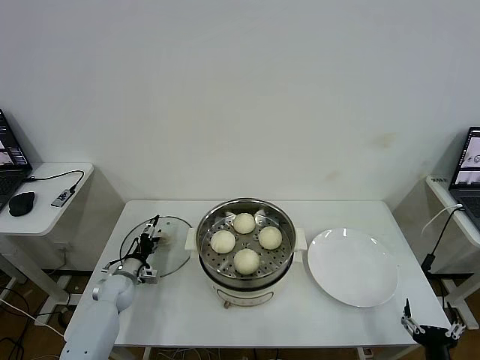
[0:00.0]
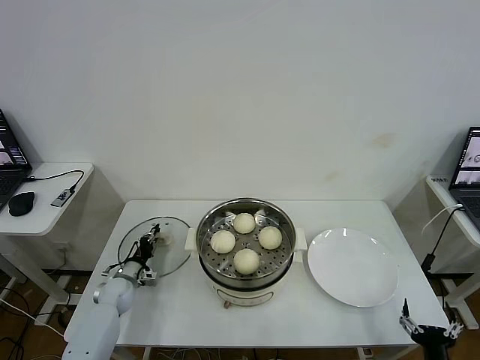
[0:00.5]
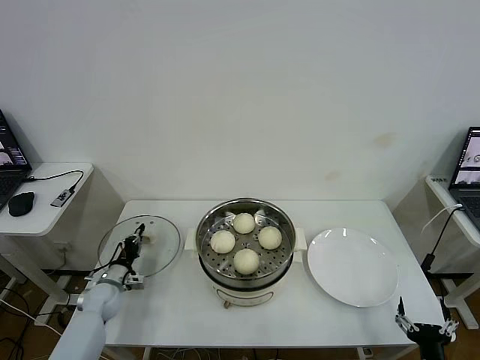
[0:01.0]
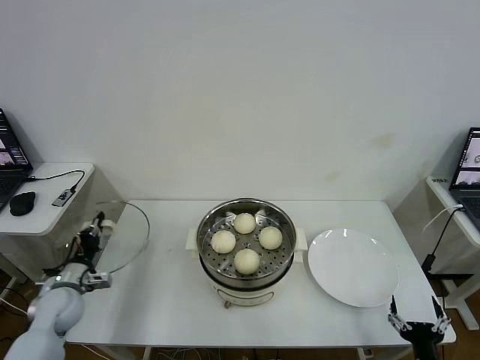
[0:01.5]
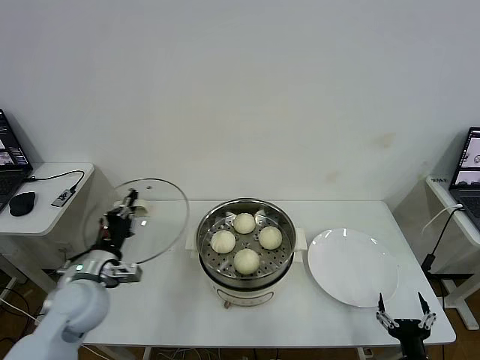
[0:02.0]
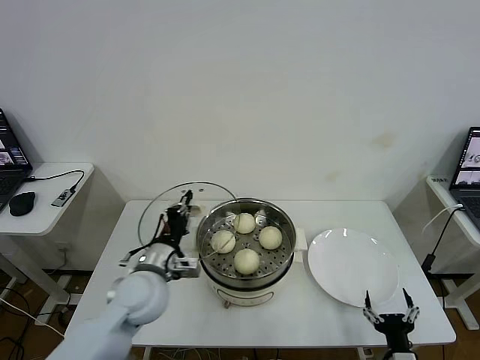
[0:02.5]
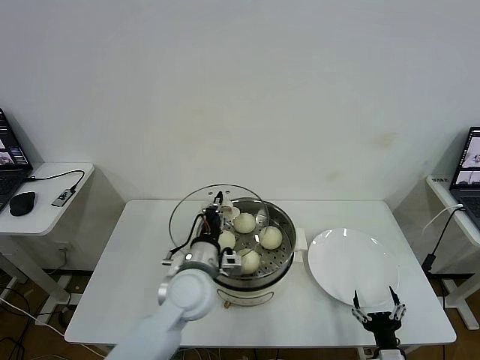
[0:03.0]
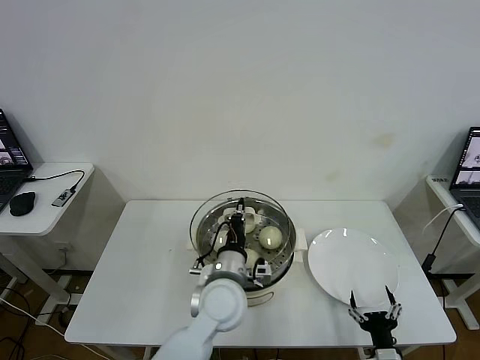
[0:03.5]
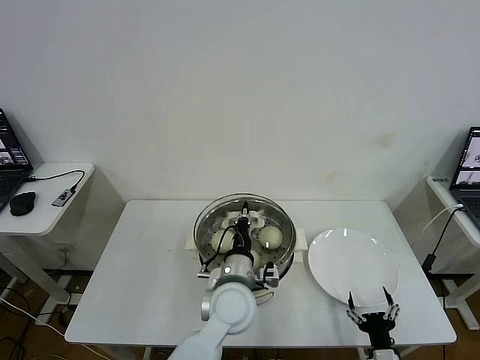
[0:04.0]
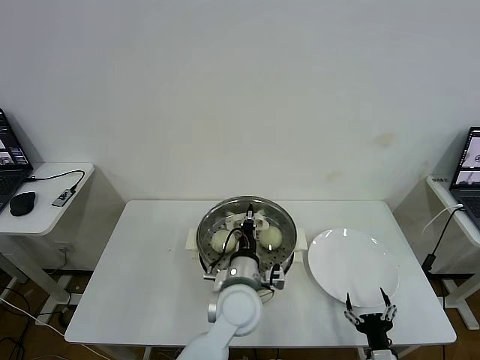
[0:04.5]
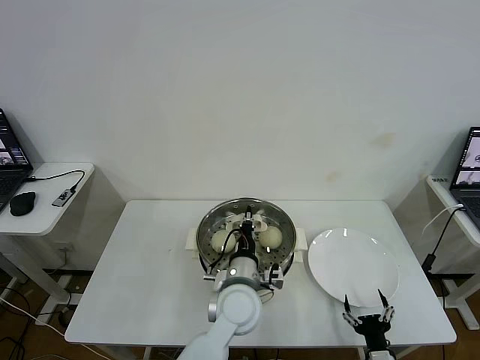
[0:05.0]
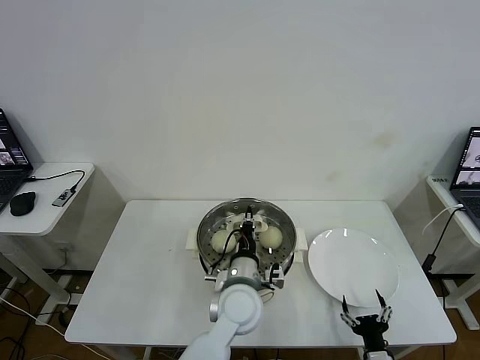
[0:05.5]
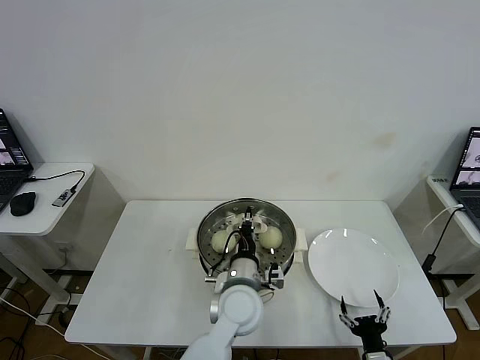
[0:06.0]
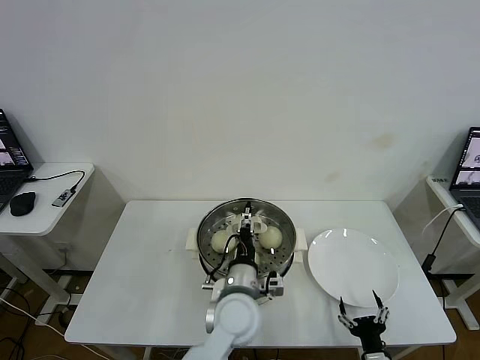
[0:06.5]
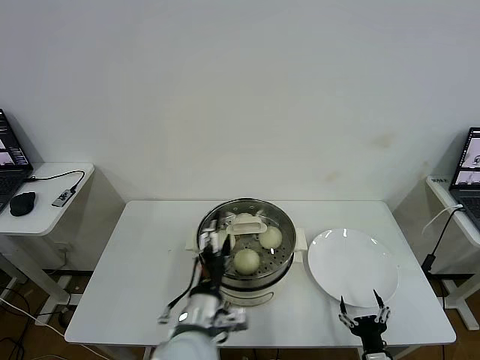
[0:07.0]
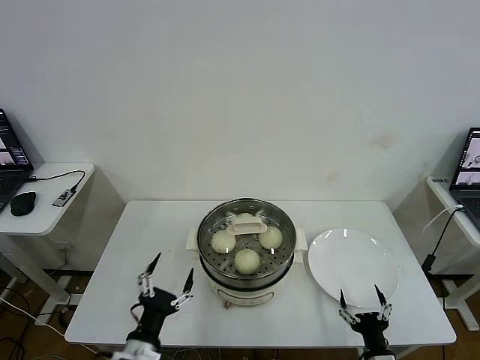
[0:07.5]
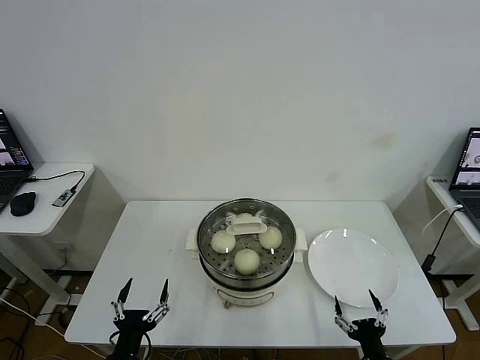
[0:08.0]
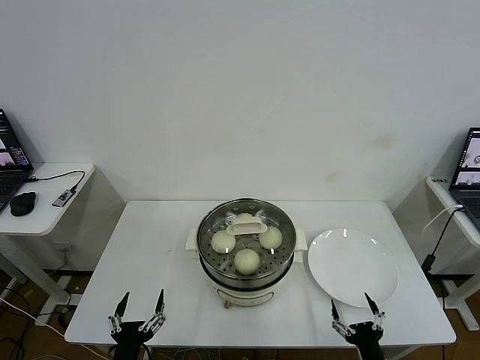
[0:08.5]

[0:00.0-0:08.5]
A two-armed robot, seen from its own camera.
Task of the whole recording: take steamed baozi put them in steamer then cover it.
Step, 0:01.0 to 0:06.5: Place the pot lid on the steamer with left gripper.
0:00.0 to 0:02.0: The left gripper moves upward and backward, some 25 cm, and closes.
0:02.0 to 0:04.0: The right gripper shifts by roughly 5 cm; the left gripper heads to the right, covering roughly 30 cm.
0:04.0 to 0:06.5: The left gripper opens up.
0:06.5 to 0:08.5: The left gripper heads to the left and backward, covering roughly 30 cm, and opens.
